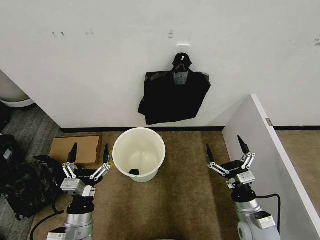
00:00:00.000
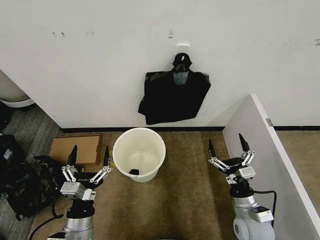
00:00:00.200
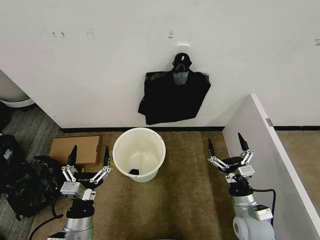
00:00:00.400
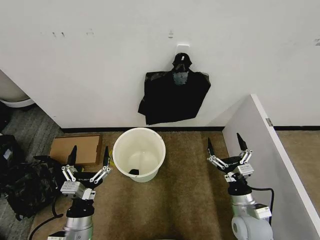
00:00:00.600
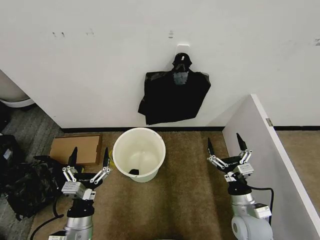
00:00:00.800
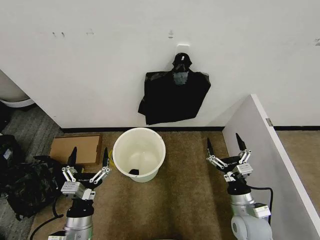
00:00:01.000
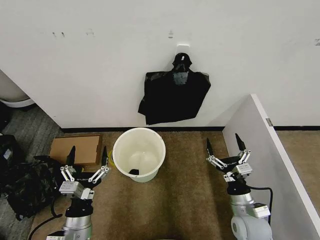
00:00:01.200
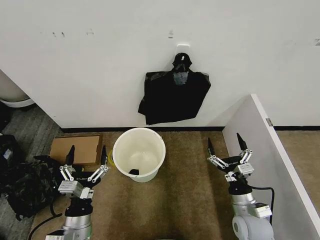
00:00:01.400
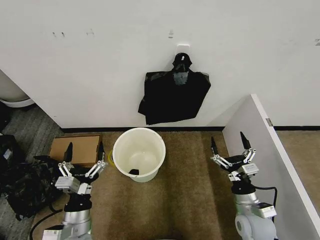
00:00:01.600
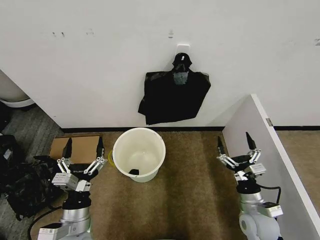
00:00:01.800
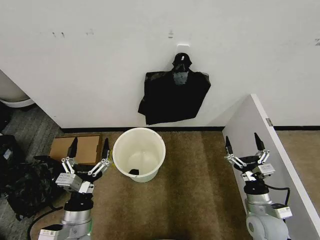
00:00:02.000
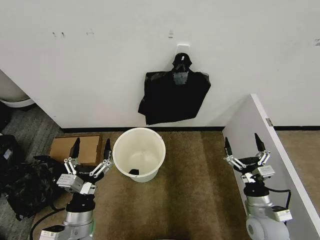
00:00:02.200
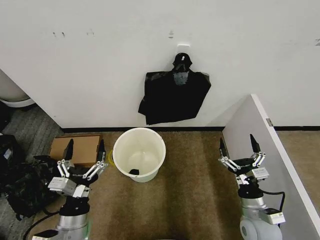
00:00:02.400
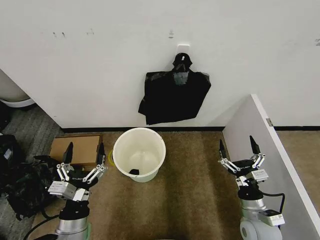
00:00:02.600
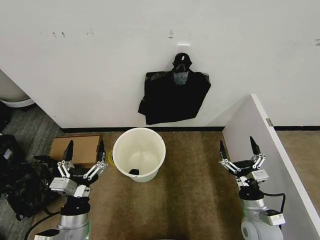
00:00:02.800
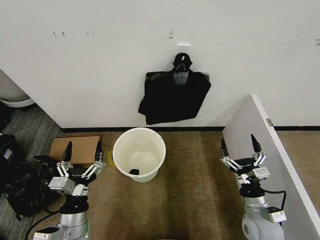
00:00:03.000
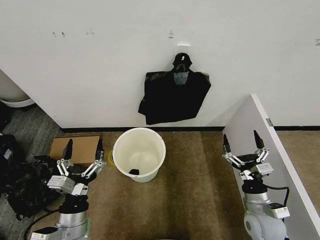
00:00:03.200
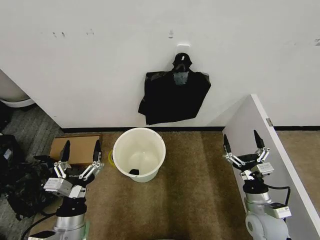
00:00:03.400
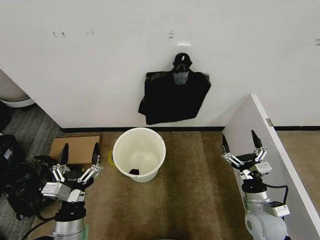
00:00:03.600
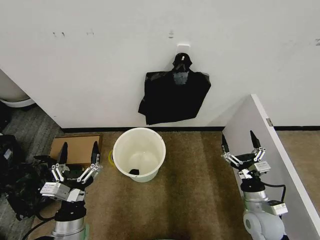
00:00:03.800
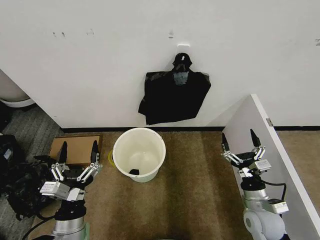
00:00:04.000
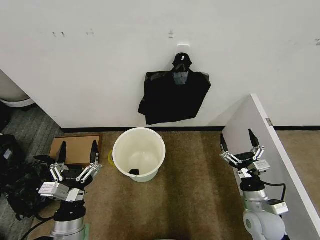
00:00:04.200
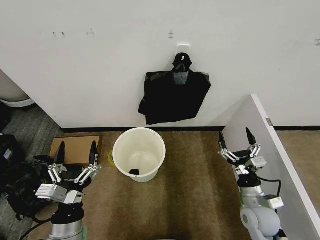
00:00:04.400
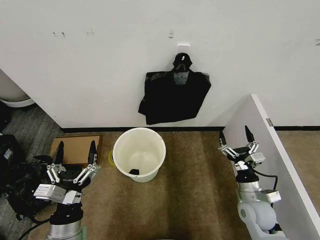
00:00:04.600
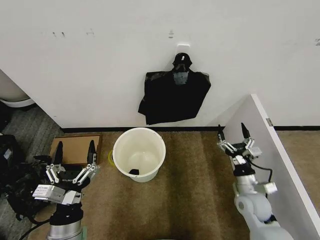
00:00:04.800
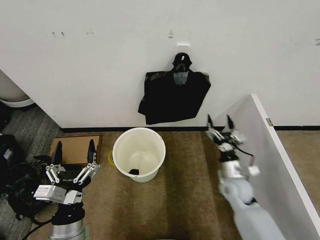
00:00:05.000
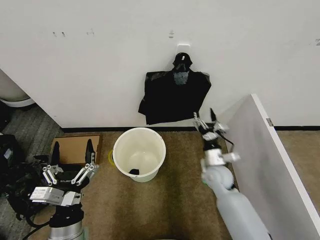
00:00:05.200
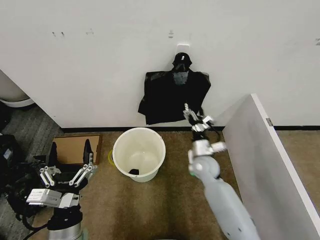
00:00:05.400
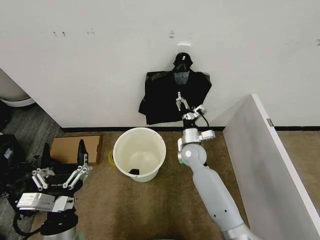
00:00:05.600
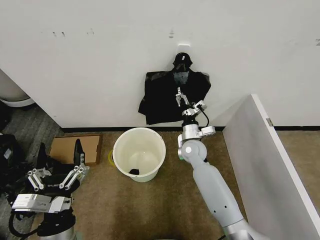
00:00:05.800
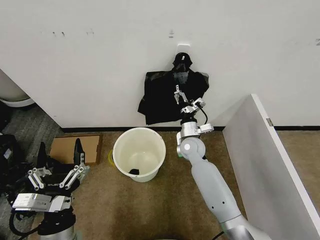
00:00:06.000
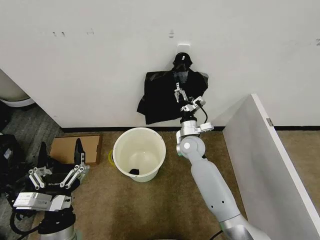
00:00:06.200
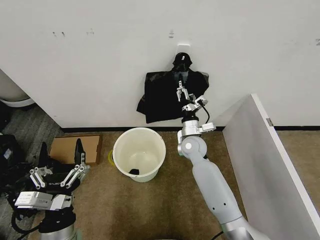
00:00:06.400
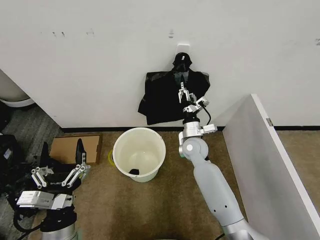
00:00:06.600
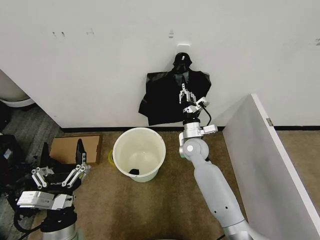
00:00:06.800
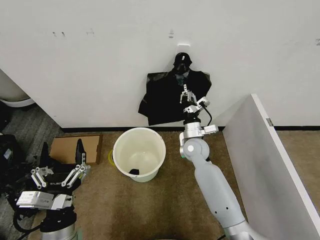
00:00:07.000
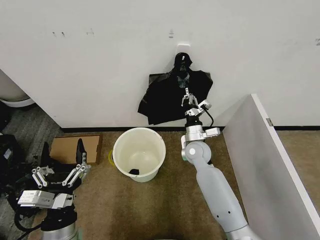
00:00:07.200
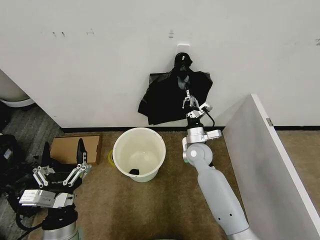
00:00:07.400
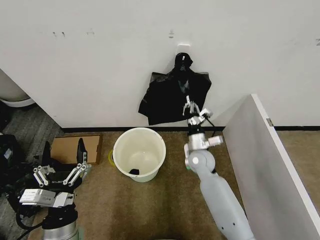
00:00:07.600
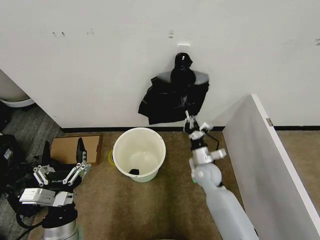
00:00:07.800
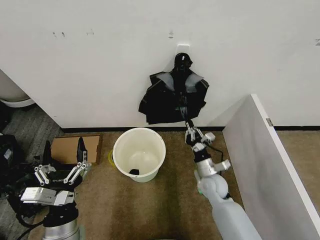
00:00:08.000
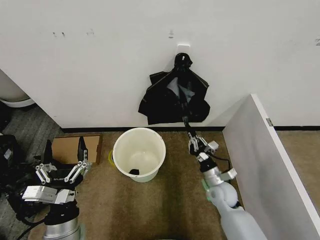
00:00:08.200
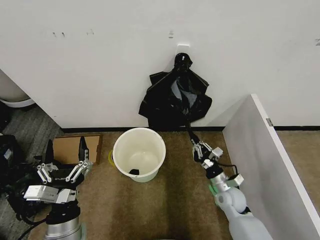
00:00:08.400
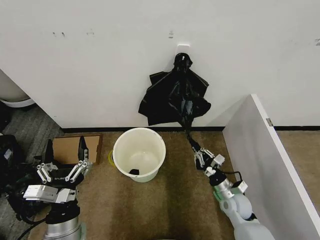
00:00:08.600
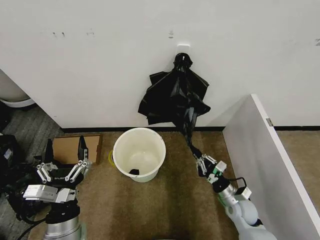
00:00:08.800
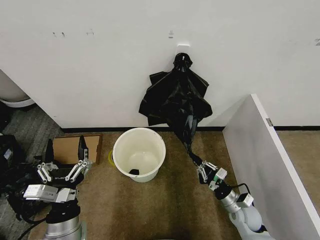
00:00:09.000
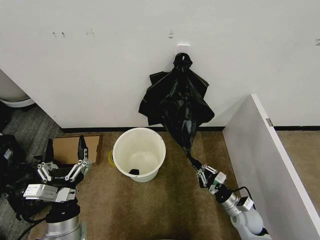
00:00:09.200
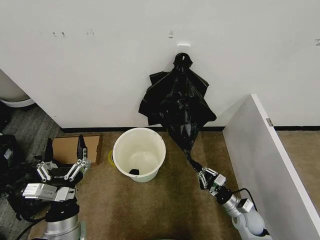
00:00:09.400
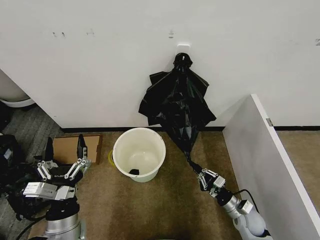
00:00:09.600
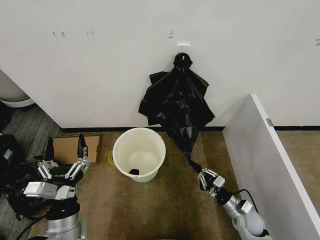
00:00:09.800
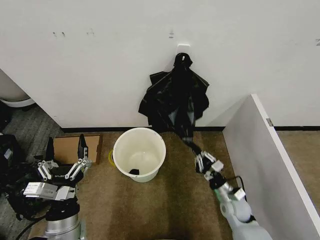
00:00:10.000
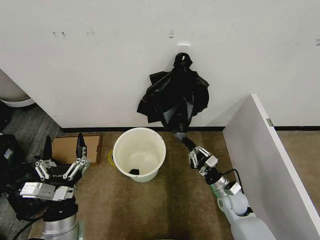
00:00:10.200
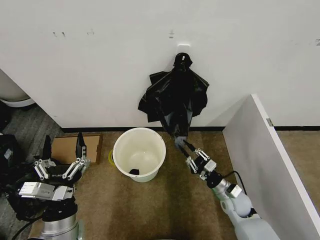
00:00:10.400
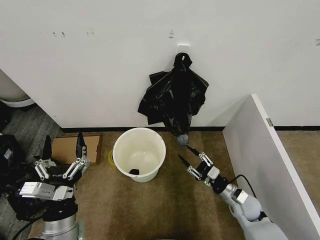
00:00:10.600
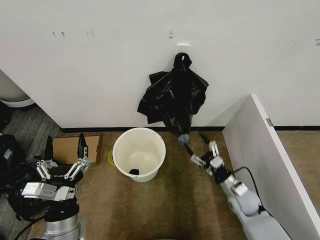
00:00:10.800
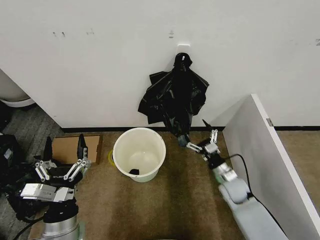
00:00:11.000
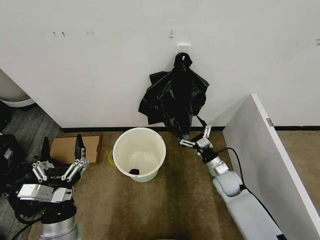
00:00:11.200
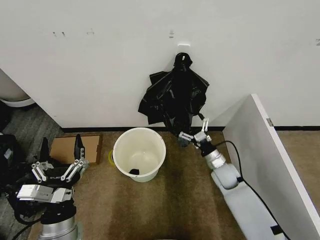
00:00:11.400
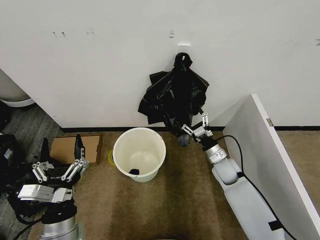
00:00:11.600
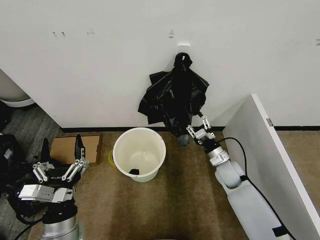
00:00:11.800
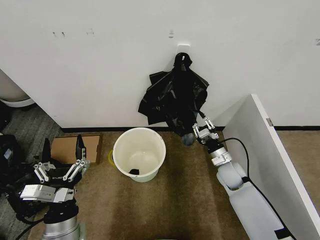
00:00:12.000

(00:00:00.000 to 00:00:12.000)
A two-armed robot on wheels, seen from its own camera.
Task of the whole recording: Place the garbage bag over the trash bin.
00:00:01.600 - 00:00:04.400: There are only small adjustments of the grippers.
00:00:04.400 - 00:00:06.000: The right gripper shifts some 30 cm forward and to the left.
00:00:06.000 - 00:00:07.600: The right gripper changes place by roughly 5 cm, and closes up.
00:00:07.600 - 00:00:09.000: The right gripper shifts roughly 25 cm to the right, backward and downward.
00:00:09.000 - 00:00:10.400: The right gripper changes place by about 5 cm.
00:00:10.400 - 00:00:12.000: The right gripper is displaced forward and upward by some 10 cm, and opens, then closes once more.

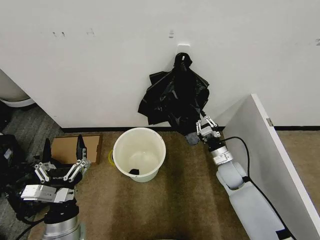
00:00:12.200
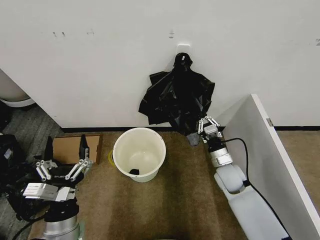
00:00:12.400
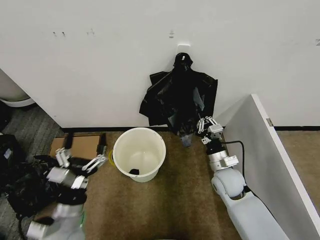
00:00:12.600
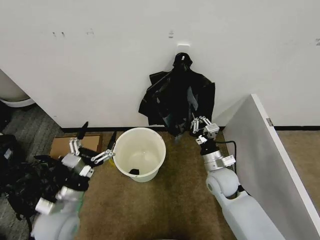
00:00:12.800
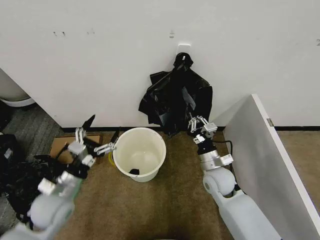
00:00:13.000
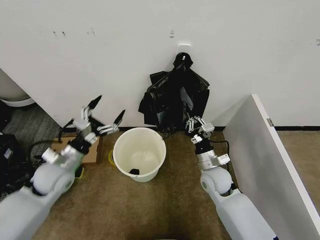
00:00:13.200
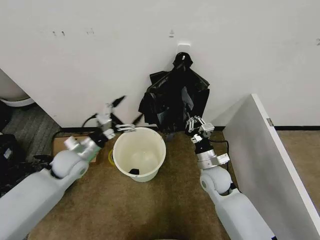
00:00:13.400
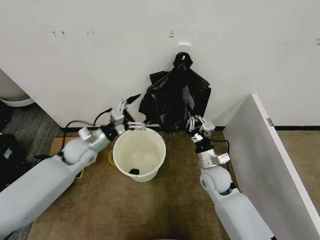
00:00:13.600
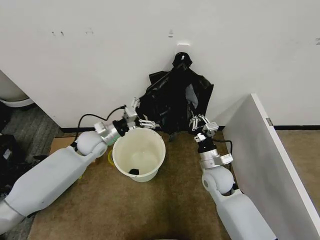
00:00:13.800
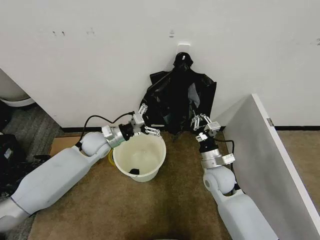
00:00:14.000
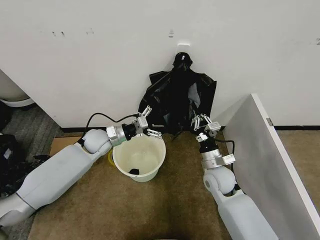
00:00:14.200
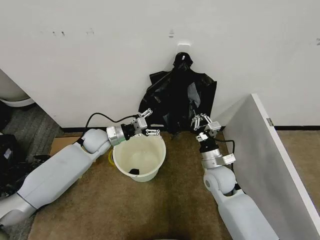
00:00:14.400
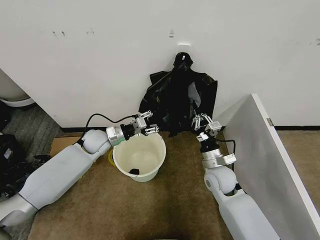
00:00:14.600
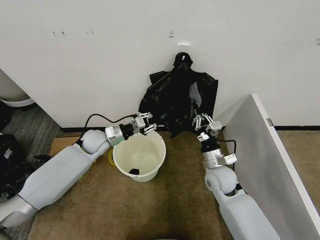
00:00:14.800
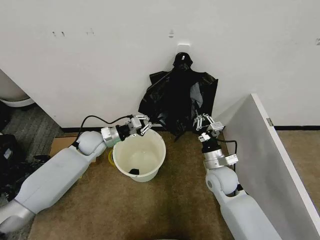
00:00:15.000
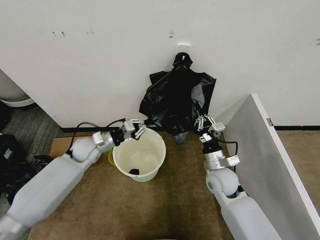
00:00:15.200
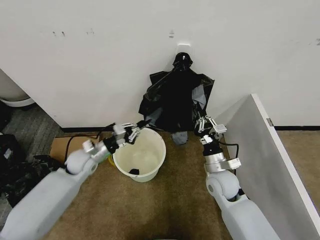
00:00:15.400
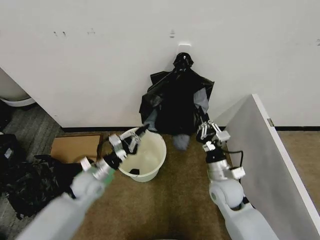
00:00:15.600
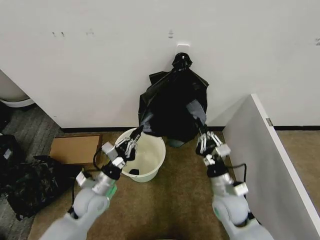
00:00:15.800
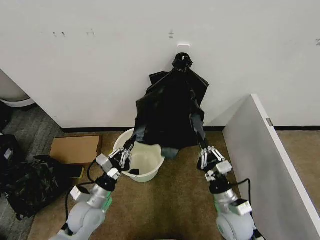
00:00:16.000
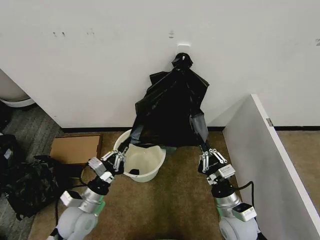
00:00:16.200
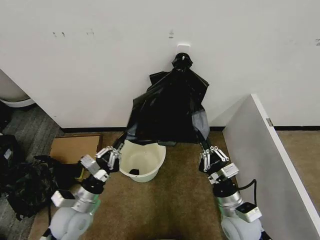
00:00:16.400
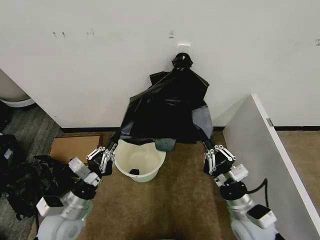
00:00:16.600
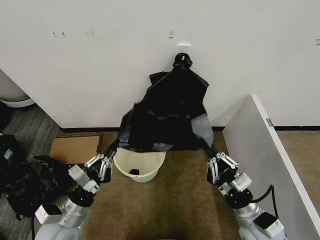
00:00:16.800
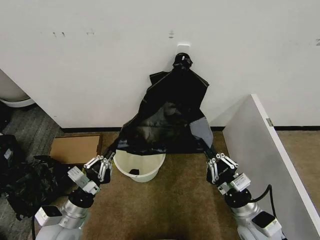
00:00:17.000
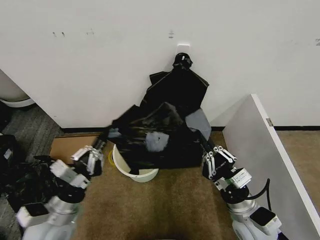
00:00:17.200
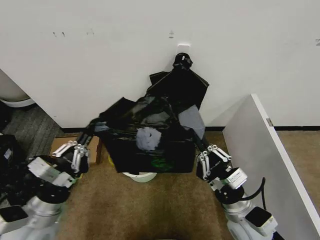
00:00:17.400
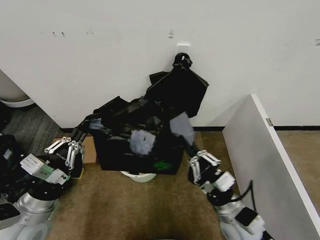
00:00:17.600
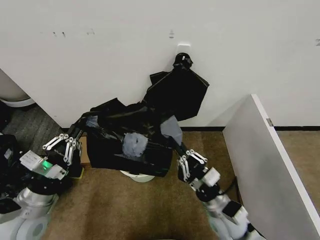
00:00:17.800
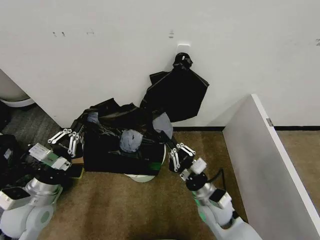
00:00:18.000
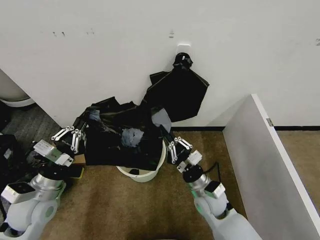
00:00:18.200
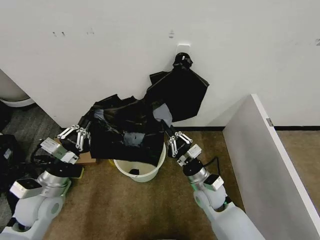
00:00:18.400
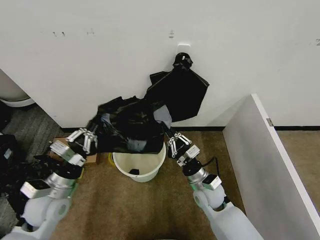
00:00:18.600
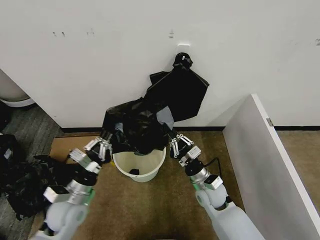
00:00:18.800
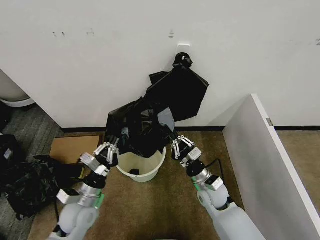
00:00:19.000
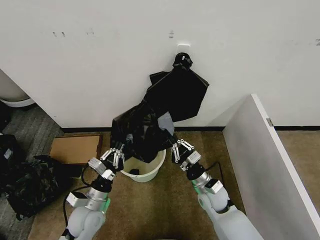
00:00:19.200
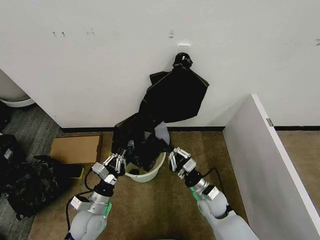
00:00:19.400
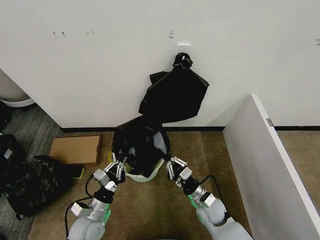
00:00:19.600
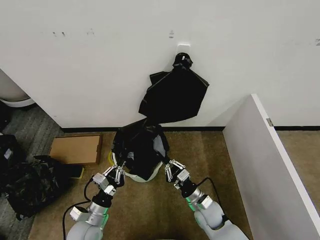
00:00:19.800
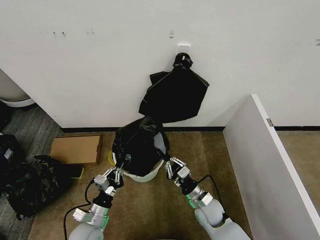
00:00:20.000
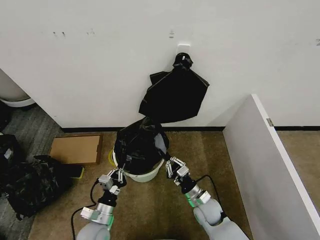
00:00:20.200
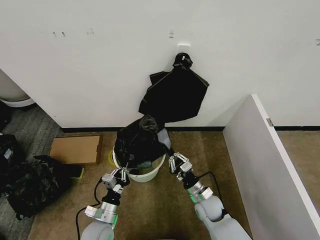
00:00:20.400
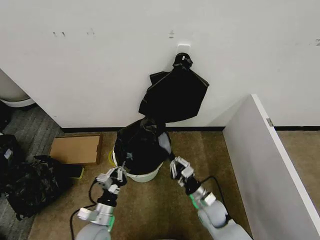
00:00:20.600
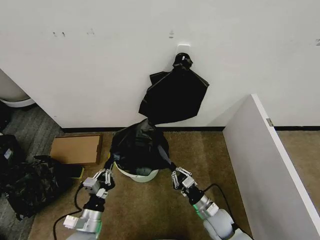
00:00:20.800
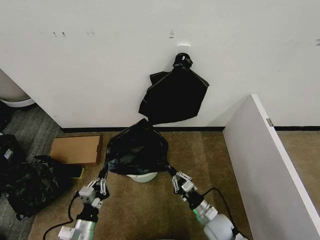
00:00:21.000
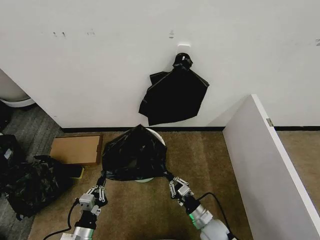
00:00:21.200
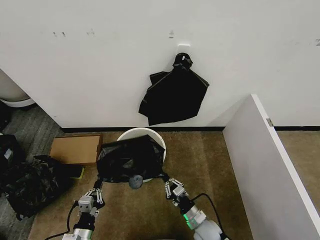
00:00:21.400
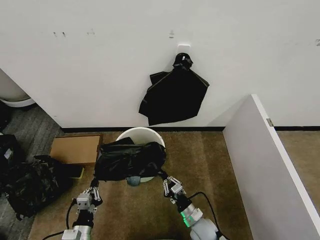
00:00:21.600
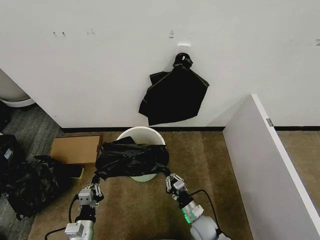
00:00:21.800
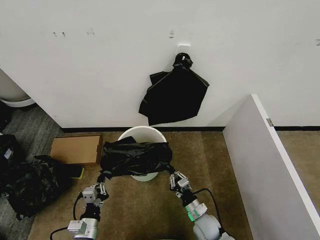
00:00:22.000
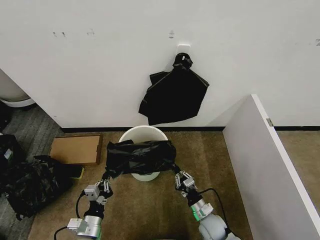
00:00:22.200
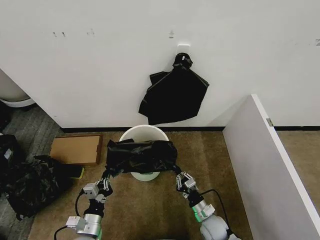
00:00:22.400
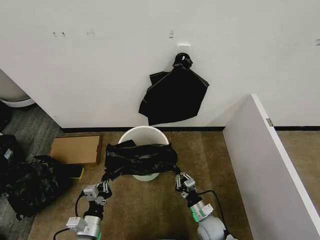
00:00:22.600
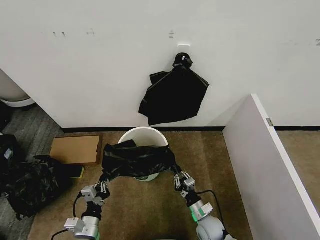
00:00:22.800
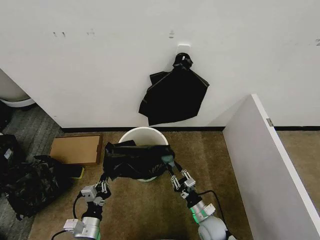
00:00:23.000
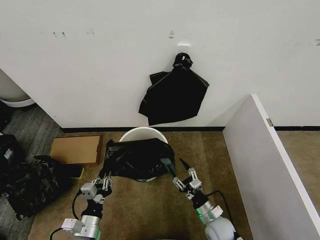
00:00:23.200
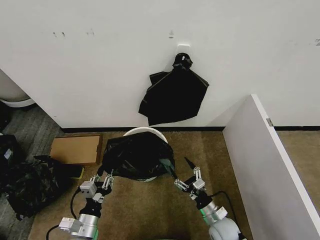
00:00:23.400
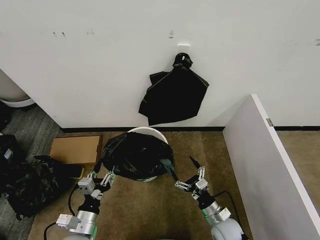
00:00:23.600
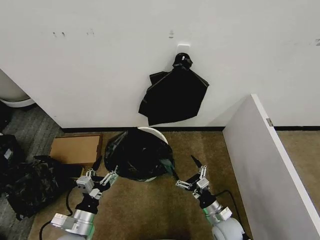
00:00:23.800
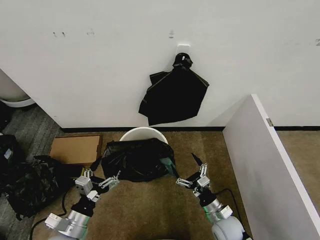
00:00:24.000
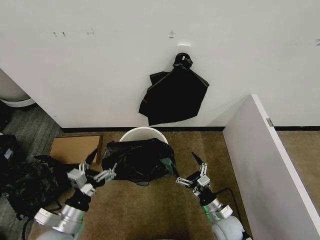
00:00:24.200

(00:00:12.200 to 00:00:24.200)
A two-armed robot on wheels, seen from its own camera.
Task of the whole recording: Place the garbage bag over the trash bin.
00:00:12.200 - 00:00:13.800: The right gripper travels to the left by some 5 cm. The left gripper is displaced forward by approximately 30 cm.
00:00:13.800 - 00:00:15.200: The left gripper closes.
00:00:15.200 - 00:00:16.600: The left gripper is displaced backward by some 25 cm. Meanwhile the right gripper goes roughly 15 cm backward.
00:00:16.600 - 00:00:18.200: The right gripper heads to the left and forward, covering some 10 cm. Meanwhile the left gripper shifts some 10 cm to the left and upward.
00:00:18.200 - 00:00:19.800: The left gripper goes about 20 cm downward and to the right, while the right gripper is displaced downward by roughly 10 cm.
00:00:19.800 - 00:00:21.200: The left gripper is displaced backward by some 10 cm, while the right gripper heads backward, covering about 5 cm.
00:00:21.200 - 00:00:22.600: There are only small adjustments of the grippers.
00:00:22.600 - 00:00:24.200: The right gripper is displaced upward by about 5 cm, and opens its fingers; the left gripper is displaced upward by some 10 cm, and opens up.
